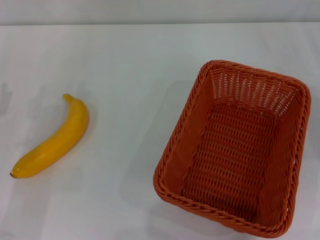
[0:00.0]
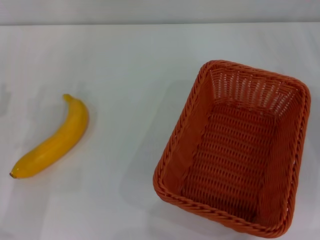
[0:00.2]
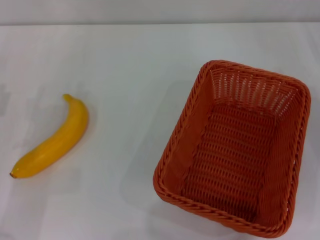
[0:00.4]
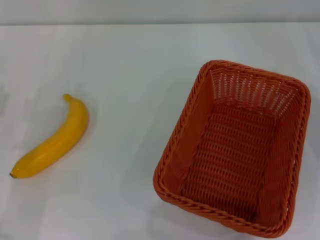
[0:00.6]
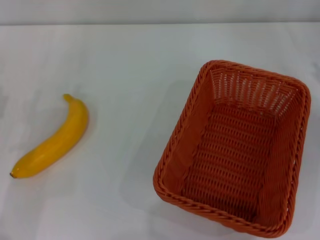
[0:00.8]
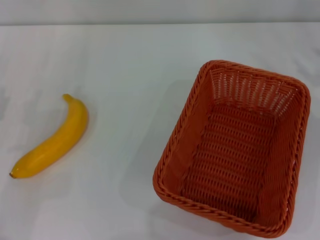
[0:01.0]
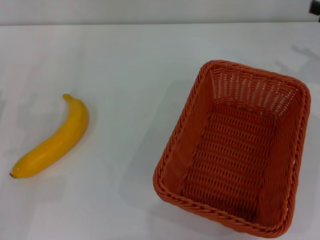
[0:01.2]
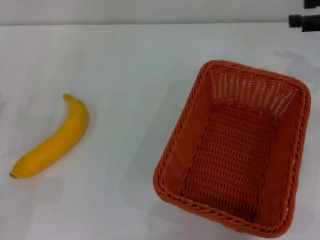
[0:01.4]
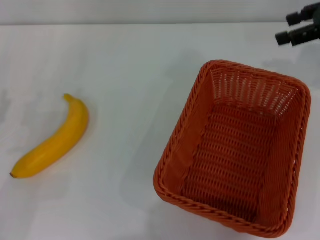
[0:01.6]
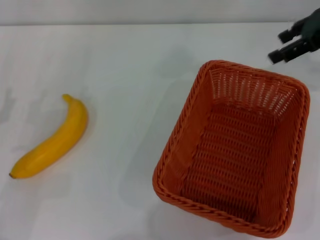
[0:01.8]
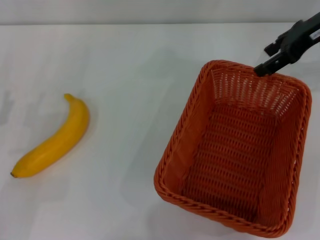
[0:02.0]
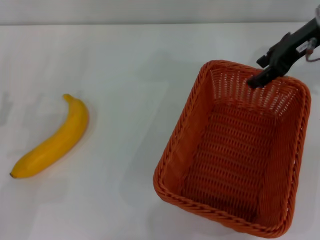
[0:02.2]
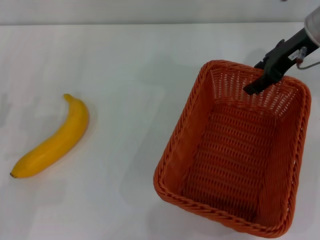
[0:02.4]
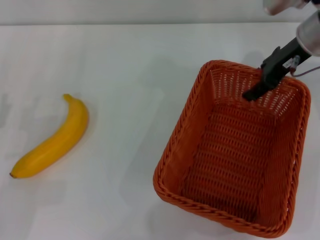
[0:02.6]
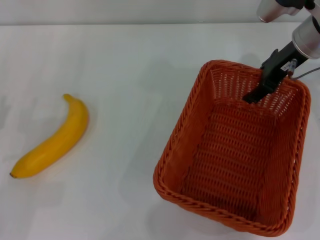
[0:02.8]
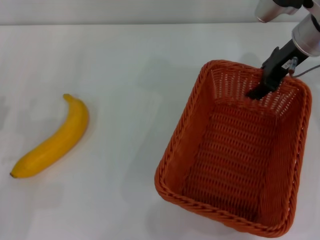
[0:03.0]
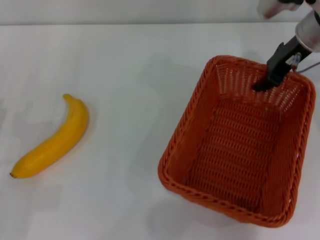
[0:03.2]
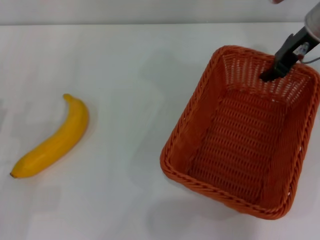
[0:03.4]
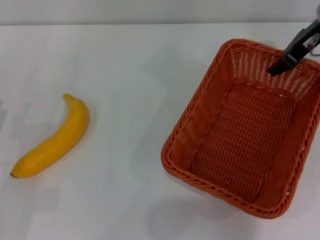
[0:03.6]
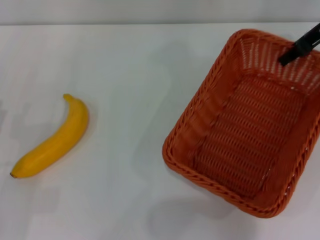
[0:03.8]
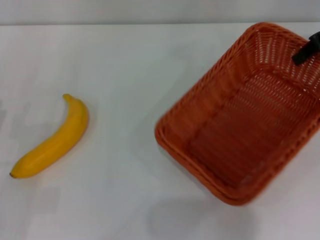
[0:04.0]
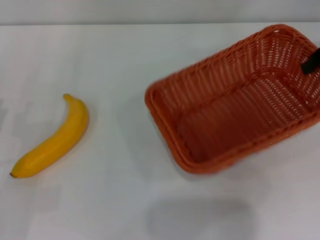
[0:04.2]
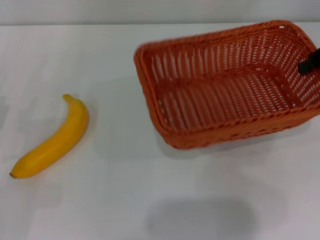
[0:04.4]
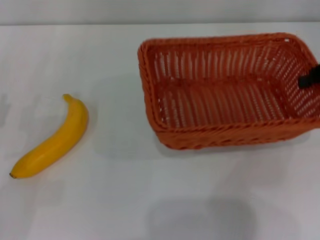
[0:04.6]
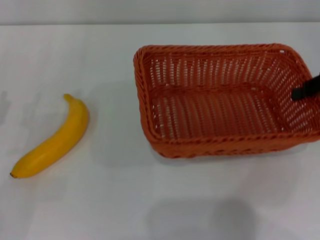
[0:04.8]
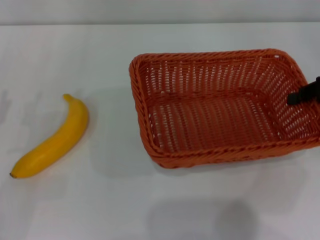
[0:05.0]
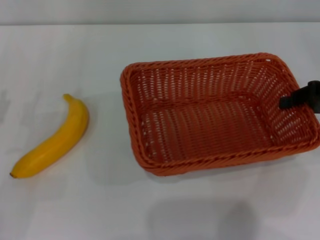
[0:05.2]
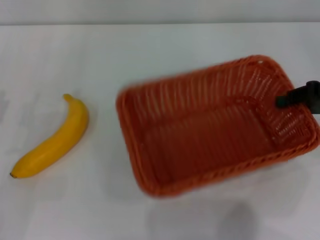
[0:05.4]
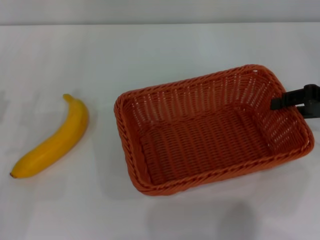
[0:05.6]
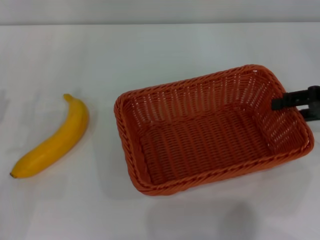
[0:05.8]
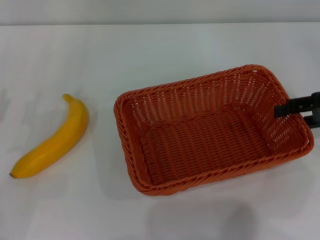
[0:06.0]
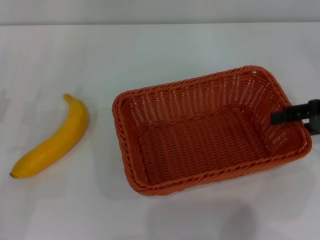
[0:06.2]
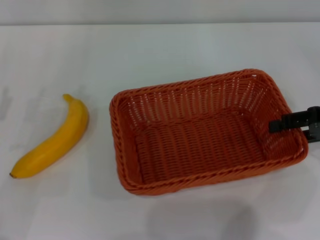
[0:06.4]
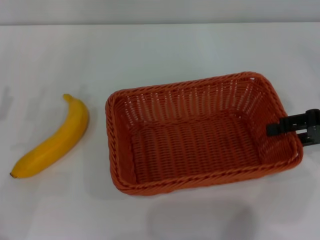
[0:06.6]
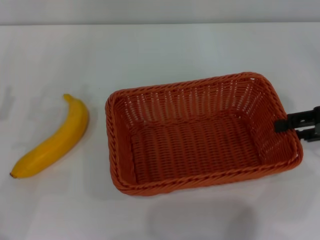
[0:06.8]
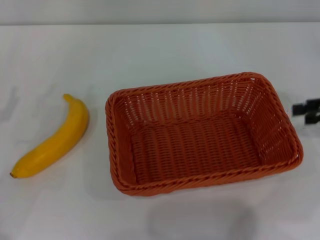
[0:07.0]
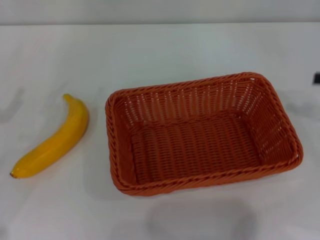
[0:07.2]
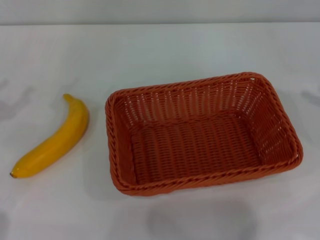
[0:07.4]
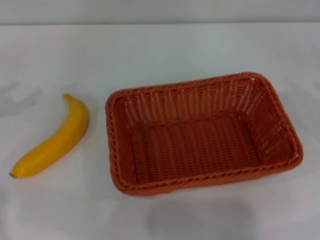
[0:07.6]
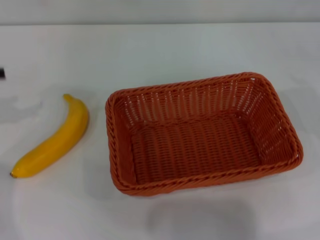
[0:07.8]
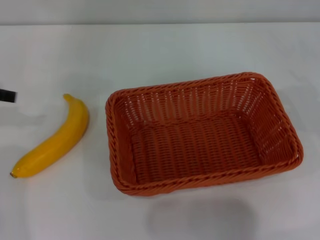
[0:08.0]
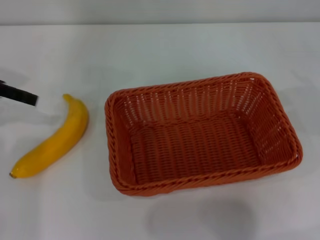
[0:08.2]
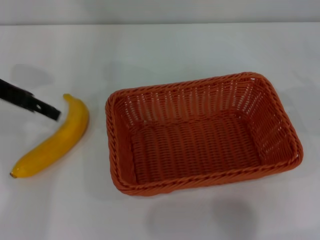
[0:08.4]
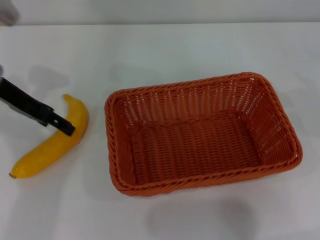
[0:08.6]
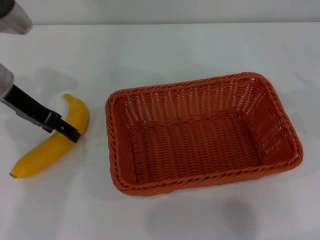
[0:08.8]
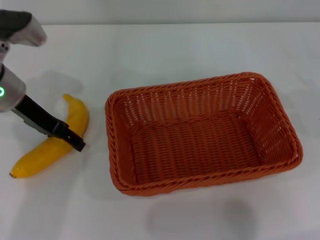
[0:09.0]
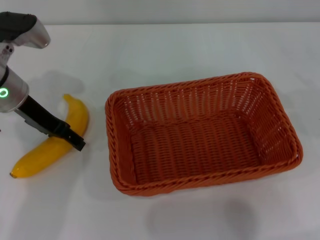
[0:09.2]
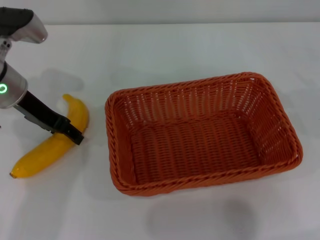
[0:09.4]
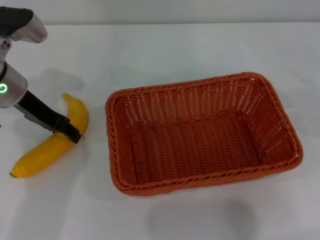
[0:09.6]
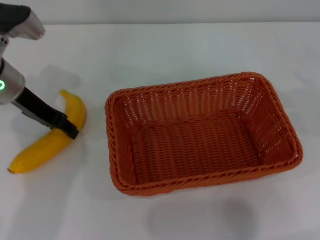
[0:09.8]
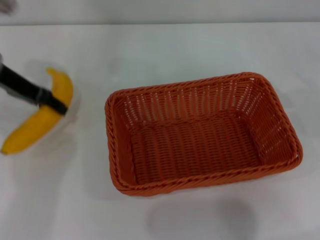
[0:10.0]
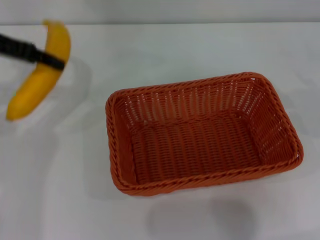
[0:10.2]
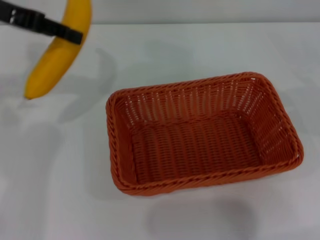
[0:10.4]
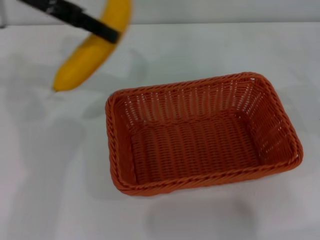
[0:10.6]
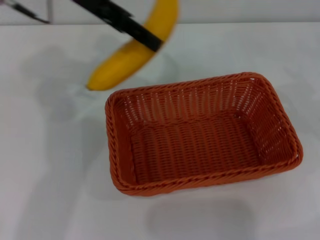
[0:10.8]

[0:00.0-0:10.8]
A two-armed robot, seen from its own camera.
Step, 0:00.0 to 0:03.4: Pick up the light basket with the right gripper.
Step, 0:03.6 to 0:06.8: Place the light basket in the center of view with the right gripper.
Step, 0:07.0 to 0:10.0: Pick up the banana with the left gripper.
0:00.0 to 0:01.6: The right gripper goes some 20 cm upward and forward.
0:01.6 to 0:03.0: The right gripper moves to the left and downward, roughly 15 cm.
0:03.0 to 0:04.6: The right gripper moves to the right and backward, some 15 cm, and closes up.
0:04.6 to 0:06.2: The right gripper ends up approximately 5 cm from where it was, and opens its fingers.
0:06.2 to 0:07.8: The left gripper heads upward, forward and to the left, covering roughly 15 cm; the right gripper goes some 10 cm to the right.
0:07.8 to 0:09.2: The left gripper is displaced to the right and forward by about 20 cm.
0:09.2 to 0:10.8: The left gripper goes approximately 15 cm upward and to the right, and closes its fingers.

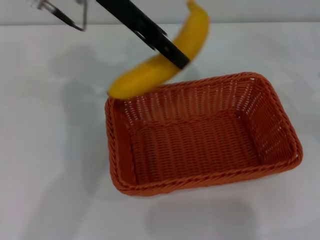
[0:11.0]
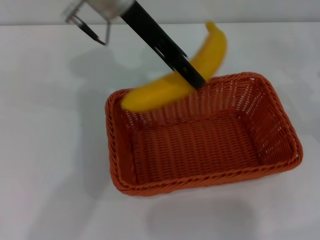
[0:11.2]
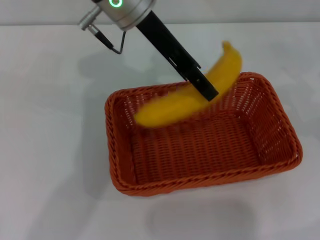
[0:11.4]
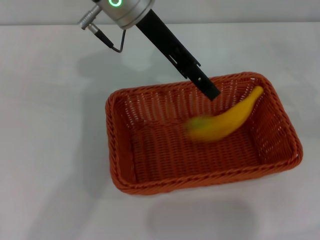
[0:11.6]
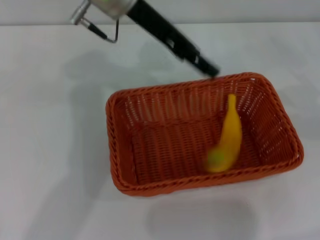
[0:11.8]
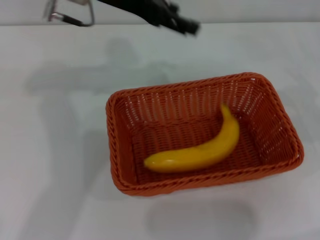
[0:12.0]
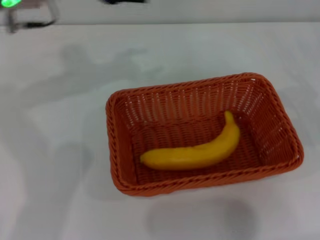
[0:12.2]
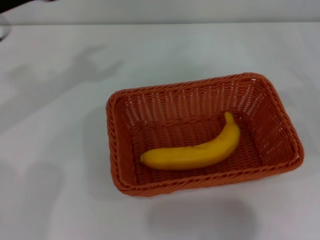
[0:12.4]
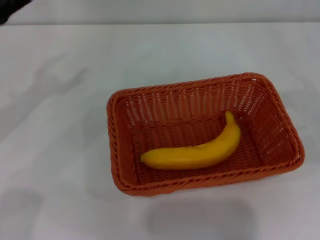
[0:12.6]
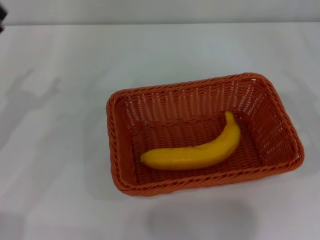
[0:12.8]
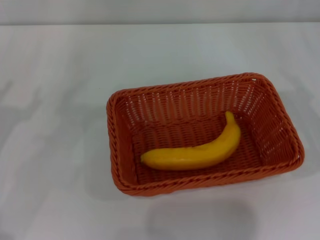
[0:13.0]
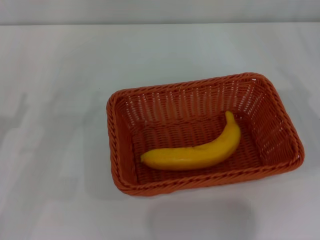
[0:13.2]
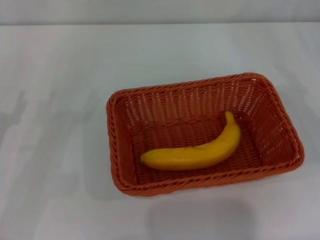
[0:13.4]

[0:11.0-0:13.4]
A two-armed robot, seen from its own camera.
0:11.0 to 0:12.2: The left gripper shifts some 10 cm to the left, and opens its fingers.
0:12.2 to 0:13.4: The left gripper is displaced downward, backward and to the left by some 25 cm.

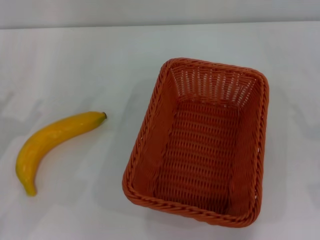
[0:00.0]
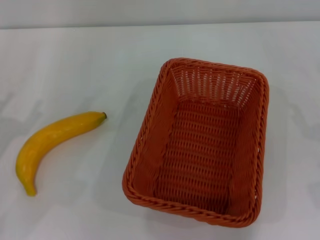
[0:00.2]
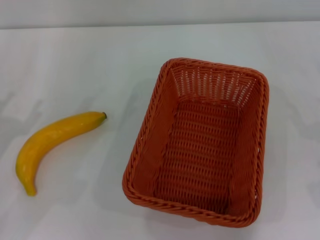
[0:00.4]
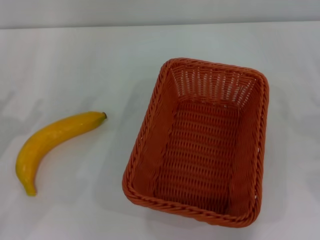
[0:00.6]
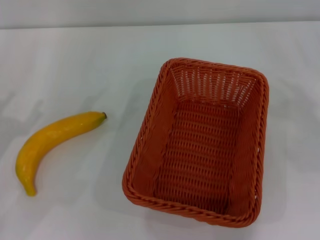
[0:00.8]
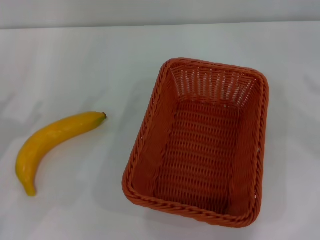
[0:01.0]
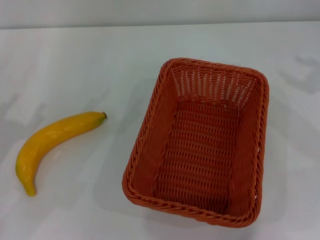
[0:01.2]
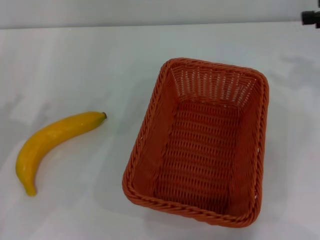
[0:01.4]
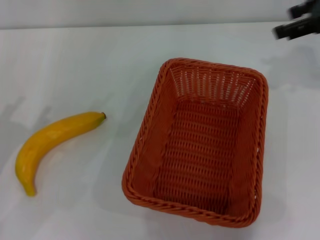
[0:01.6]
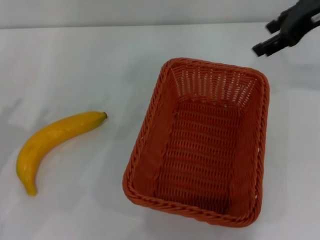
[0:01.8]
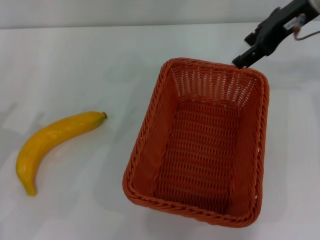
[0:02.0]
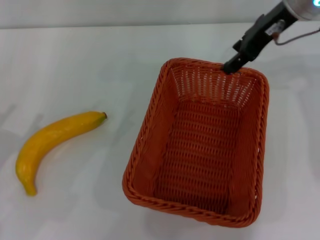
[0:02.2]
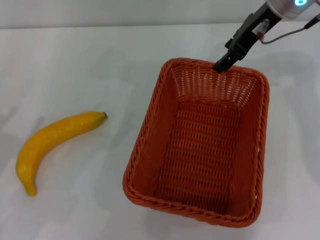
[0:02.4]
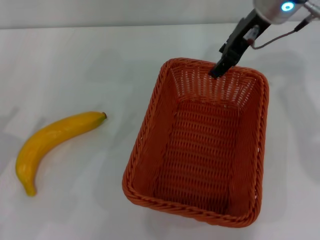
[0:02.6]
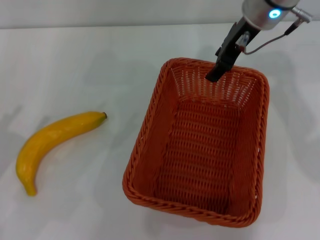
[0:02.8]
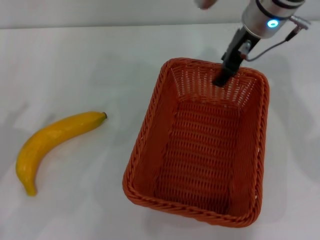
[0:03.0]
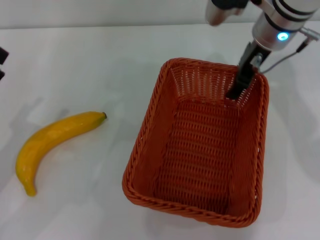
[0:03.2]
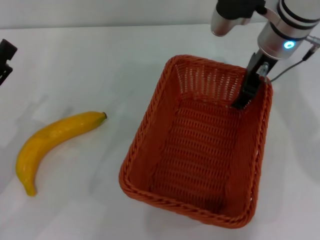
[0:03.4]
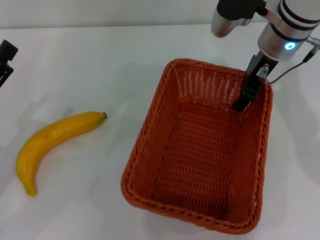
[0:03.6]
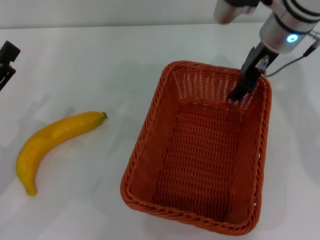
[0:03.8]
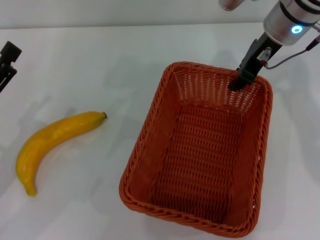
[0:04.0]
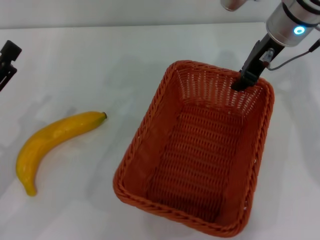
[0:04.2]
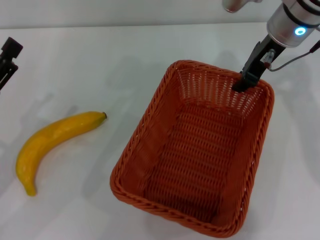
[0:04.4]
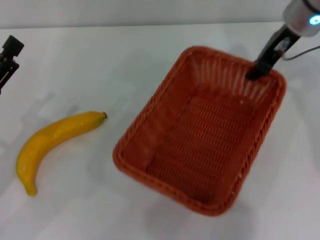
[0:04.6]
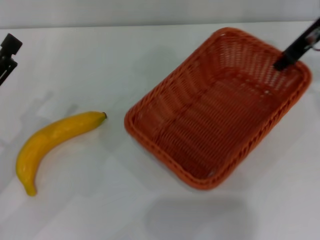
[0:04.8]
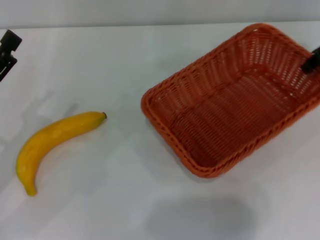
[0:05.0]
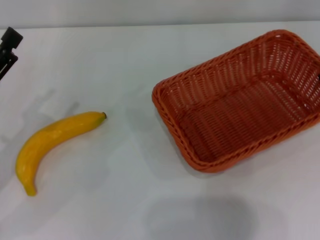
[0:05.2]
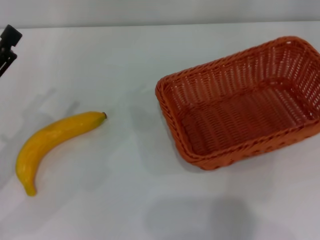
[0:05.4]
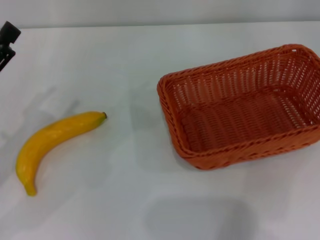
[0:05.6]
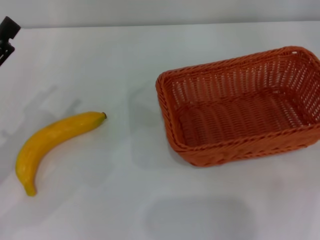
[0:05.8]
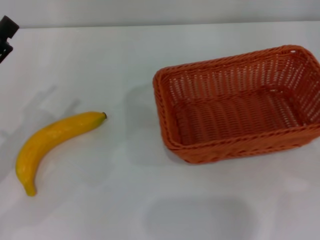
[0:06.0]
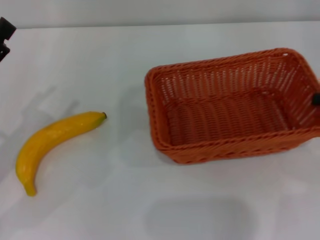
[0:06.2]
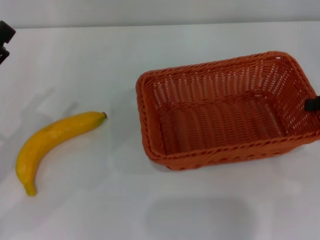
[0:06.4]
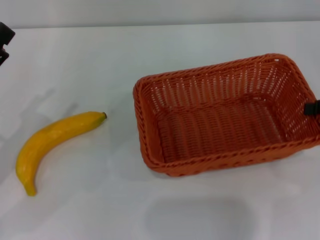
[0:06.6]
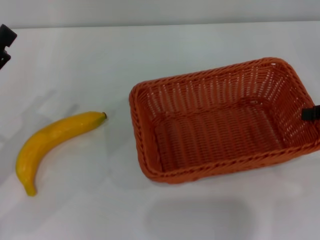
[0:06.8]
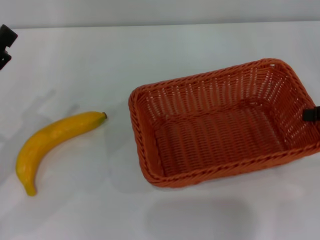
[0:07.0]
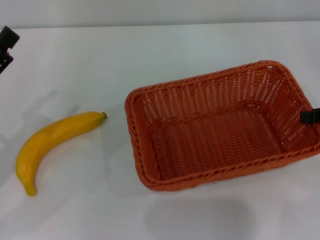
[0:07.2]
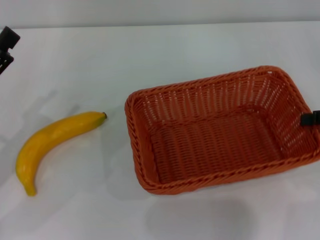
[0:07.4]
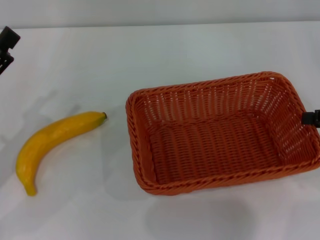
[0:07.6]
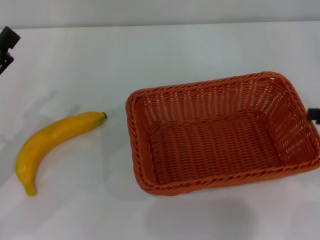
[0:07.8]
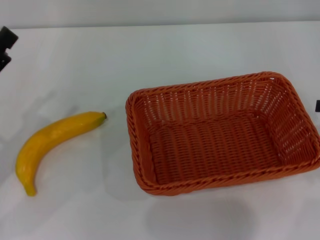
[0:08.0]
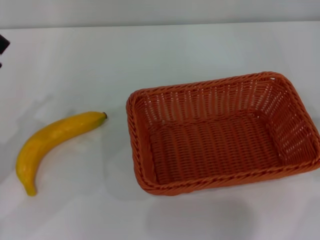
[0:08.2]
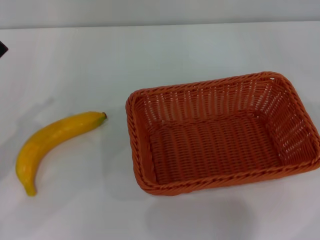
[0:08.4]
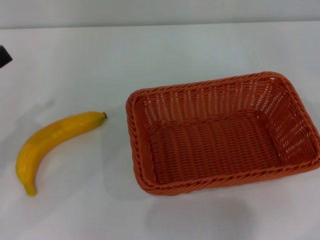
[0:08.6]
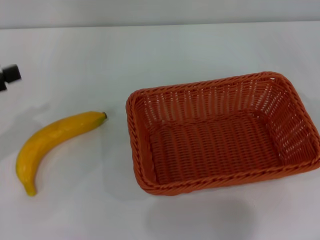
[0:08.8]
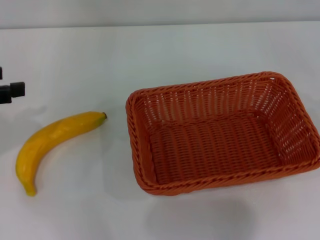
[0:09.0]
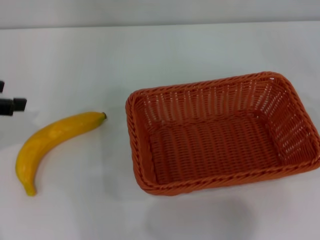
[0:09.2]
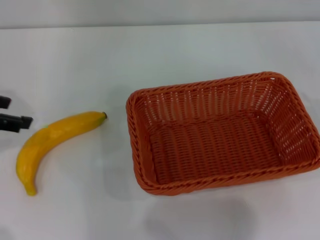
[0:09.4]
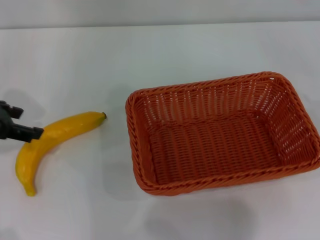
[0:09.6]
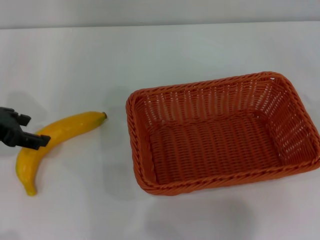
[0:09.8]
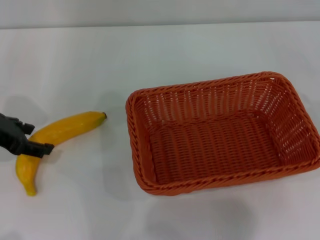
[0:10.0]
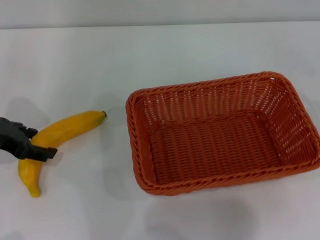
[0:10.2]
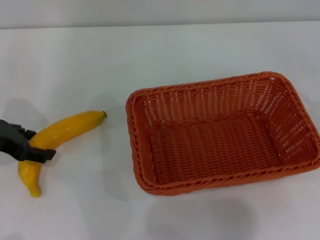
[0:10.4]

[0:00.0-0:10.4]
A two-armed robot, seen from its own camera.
Step, 0:00.0 to 0:04.4: Pick up the light basket with the right gripper.
Step, 0:04.8 to 0:07.6: Place the light basket in the center of view with the right gripper.
0:01.4 to 0:03.0: The right gripper is displaced to the left by roughly 20 cm.
0:03.0 to 0:04.4: The right gripper closes its fingers.
0:04.4 to 0:06.0: The right gripper shifts approximately 25 cm to the right and backward.
0:06.0 to 0:07.4: The grippers move only a little.
0:07.4 to 0:09.0: The left gripper heads upward, covering about 10 cm, while the right gripper moves to the right, some 10 cm, and opens.
0:09.0 to 0:10.4: The left gripper goes some 10 cm downward.
